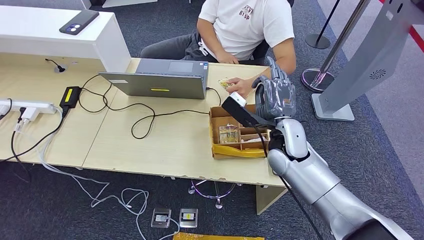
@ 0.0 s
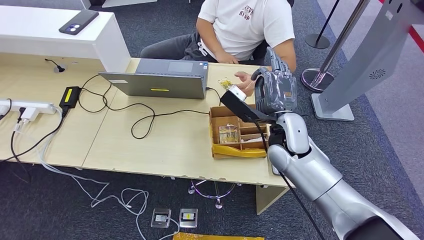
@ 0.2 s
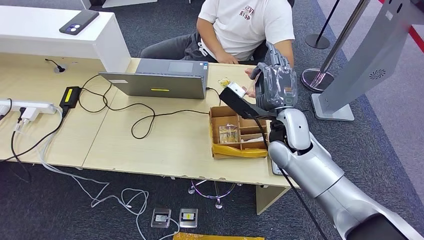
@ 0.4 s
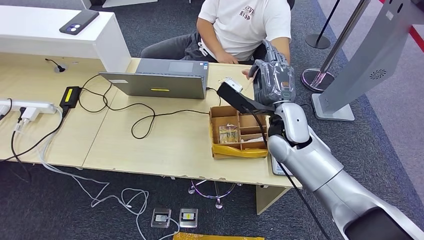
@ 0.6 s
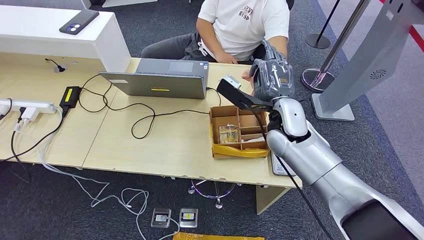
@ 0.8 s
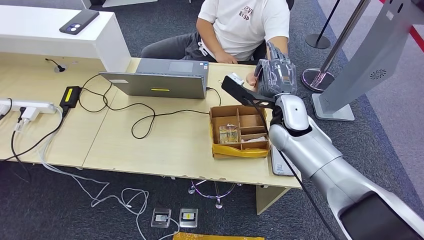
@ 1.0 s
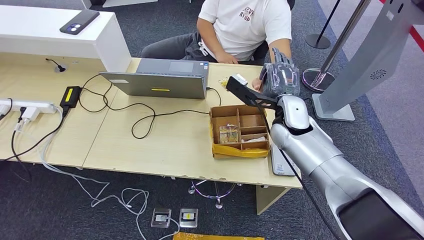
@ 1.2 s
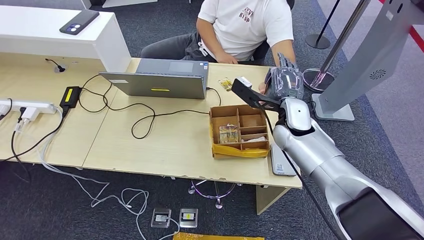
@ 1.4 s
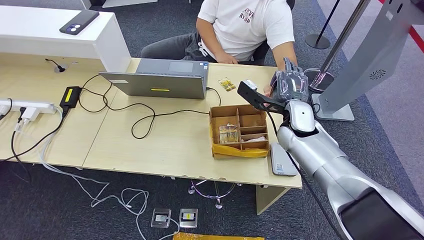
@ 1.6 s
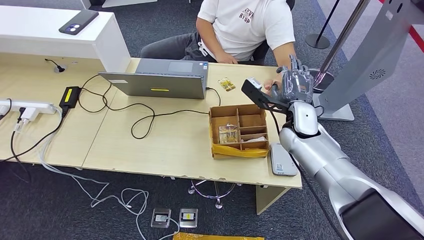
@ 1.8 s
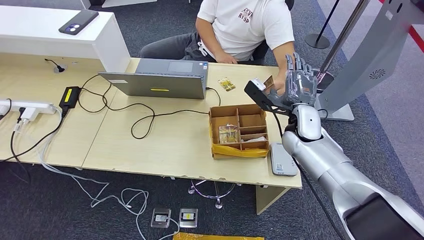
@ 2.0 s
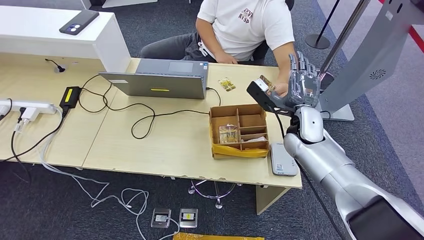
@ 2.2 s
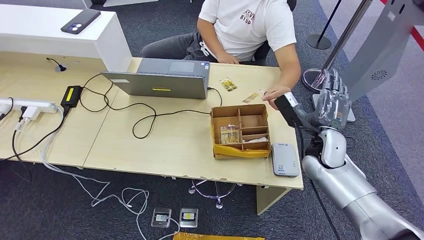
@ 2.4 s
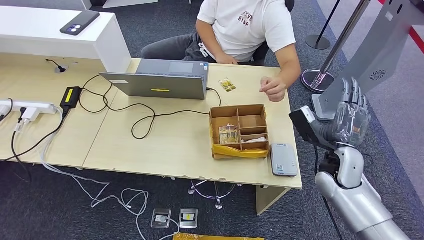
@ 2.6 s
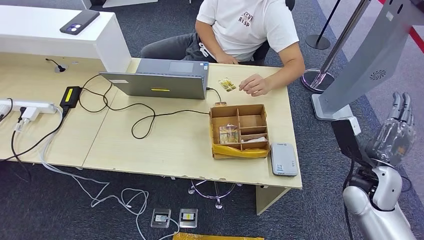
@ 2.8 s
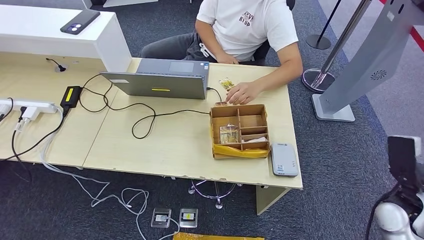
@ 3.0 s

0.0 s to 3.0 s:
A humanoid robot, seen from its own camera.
Step, 0.0 to 3.0 s: Hand the room key to the person.
0.0 to 1.6 s: The right hand heads forward, covering roughly 5 cm.
1.6 to 3.0 s: The right hand heads to the right and backward, covering about 30 cm.
